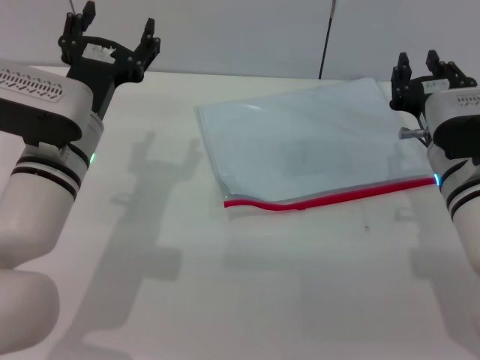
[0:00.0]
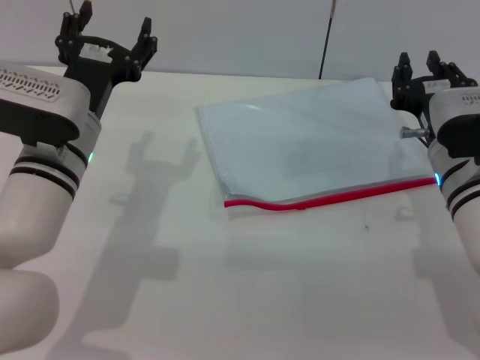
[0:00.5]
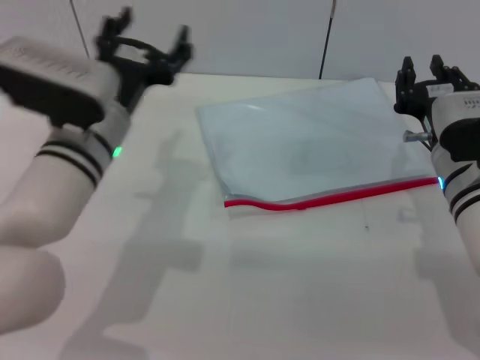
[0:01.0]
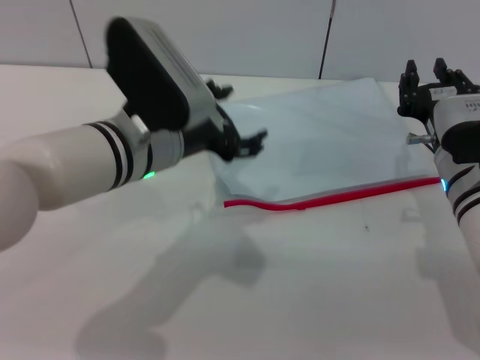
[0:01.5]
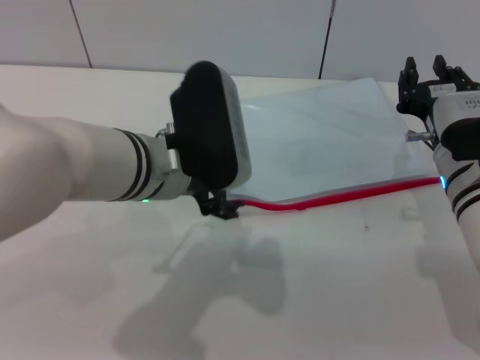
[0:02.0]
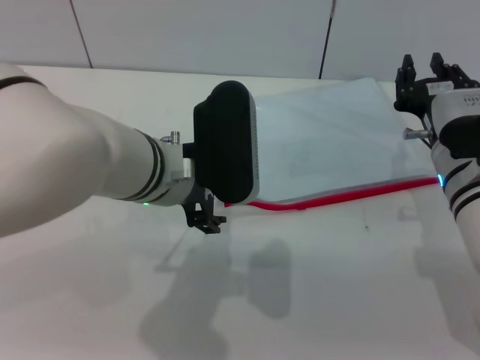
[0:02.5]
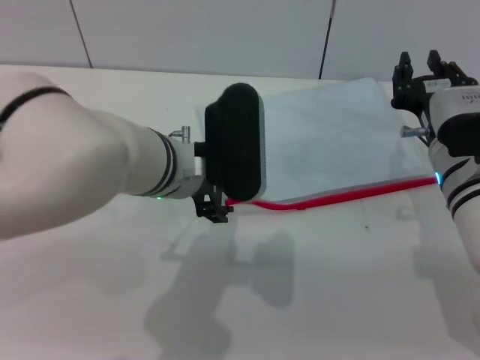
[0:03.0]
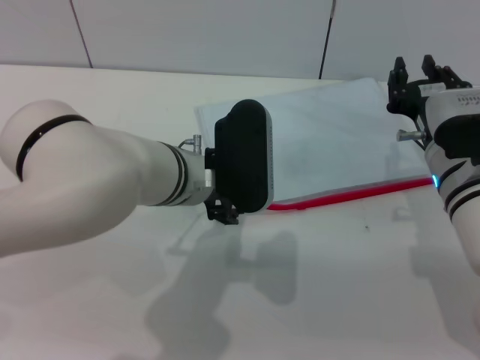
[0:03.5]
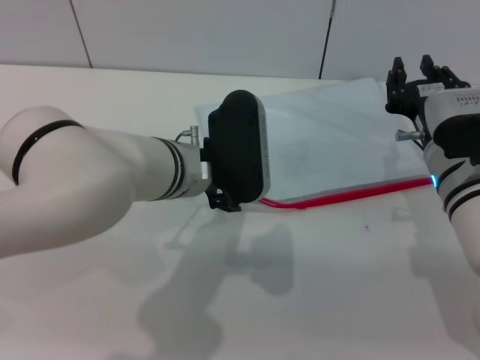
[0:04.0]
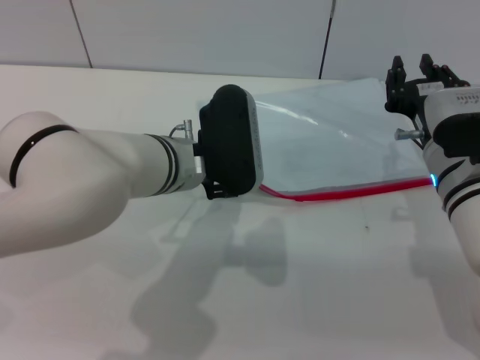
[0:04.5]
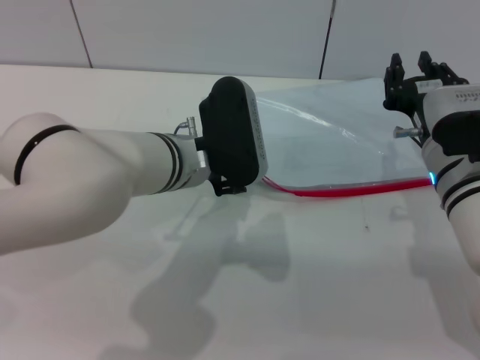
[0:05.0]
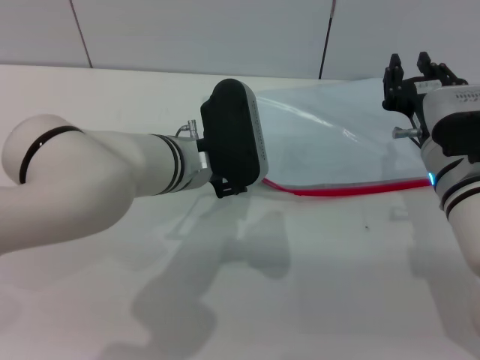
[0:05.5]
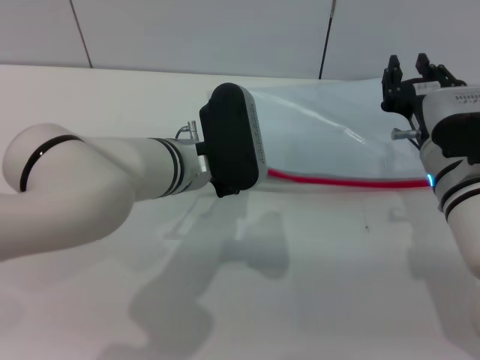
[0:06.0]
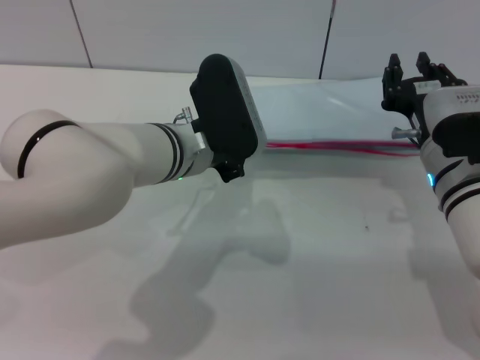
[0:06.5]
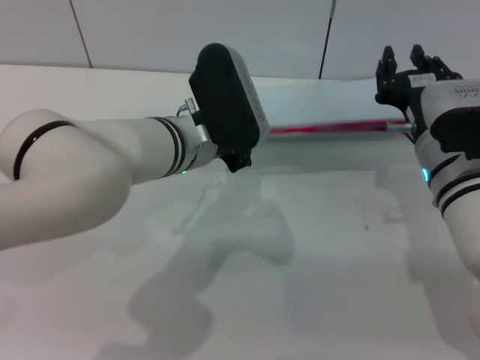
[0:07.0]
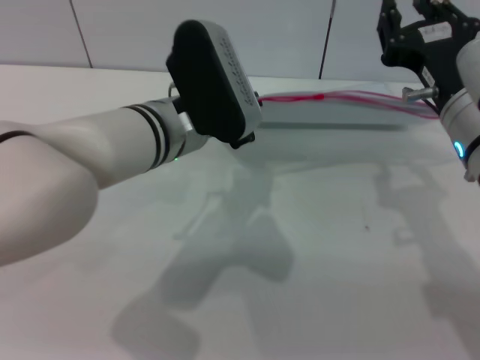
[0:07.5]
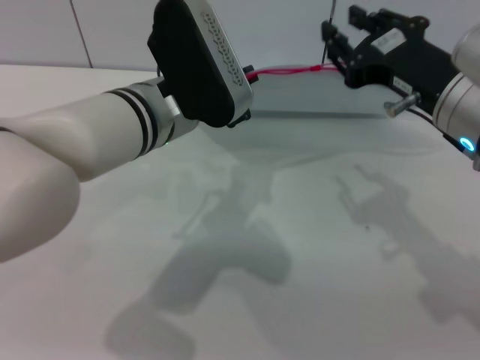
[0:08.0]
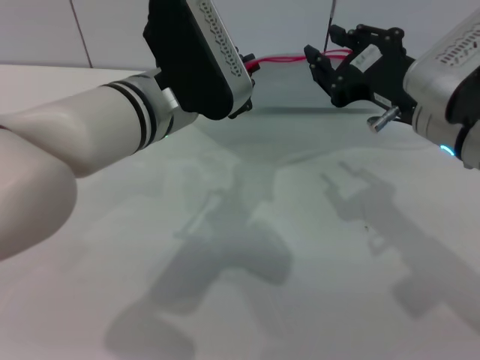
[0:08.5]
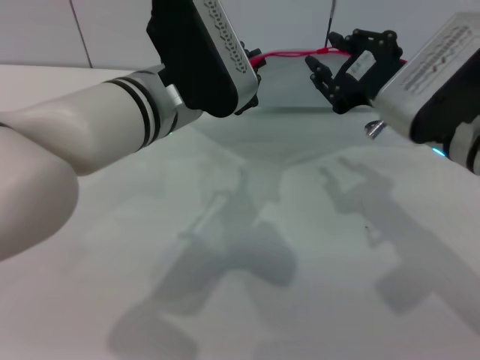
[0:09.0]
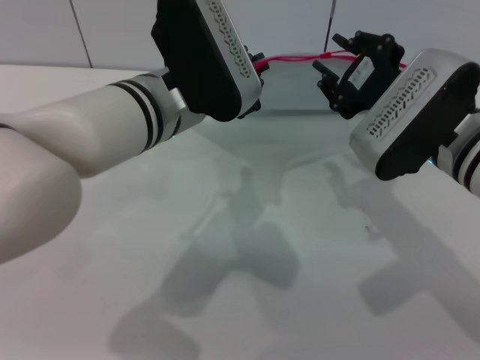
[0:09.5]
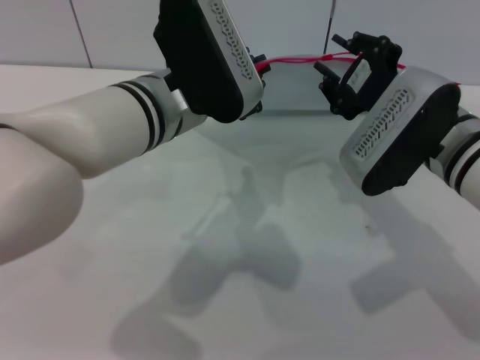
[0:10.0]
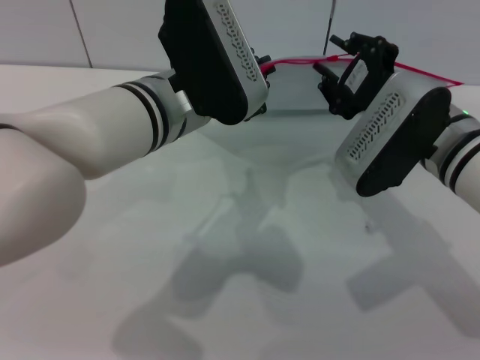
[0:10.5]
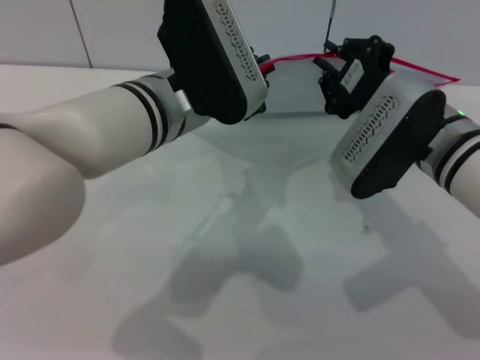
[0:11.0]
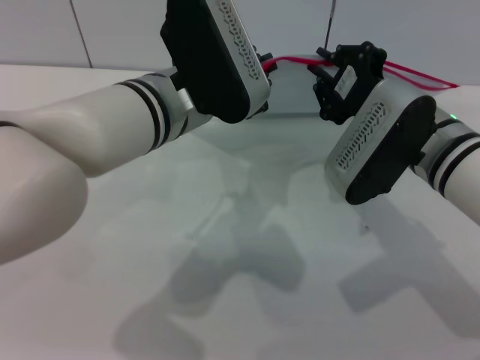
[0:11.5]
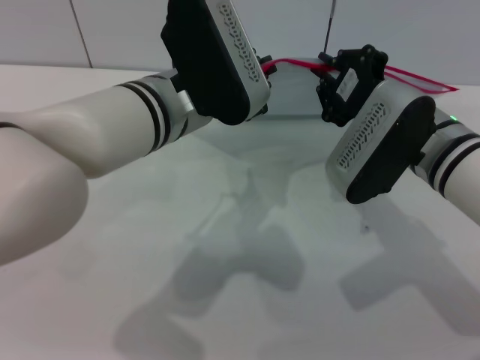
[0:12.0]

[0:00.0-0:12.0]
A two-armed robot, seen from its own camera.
Step, 0:00.0 to 0:07.5: Pick up the transparent plastic bag with the left gripper.
0:00.0 to 0:02.0: The left gripper shifts roughly 10 cm to the right.
0:02.0 to 0:04.0: The left gripper moves roughly 5 cm.
0:04.0 to 0:06.0: The left gripper closes.
0:06.0 to 0:08.0: Both grippers travel together upward, some 10 cm. The left gripper closes up.
0:08.0 to 0:10.0: The right gripper ends up approximately 5 cm from where it was.
0:10.0 to 0:12.0: The right gripper closes up.

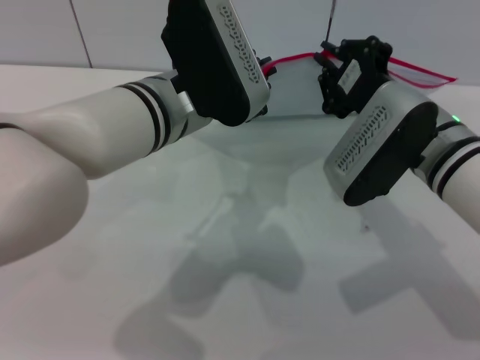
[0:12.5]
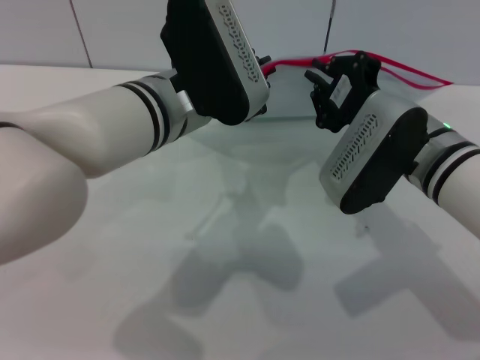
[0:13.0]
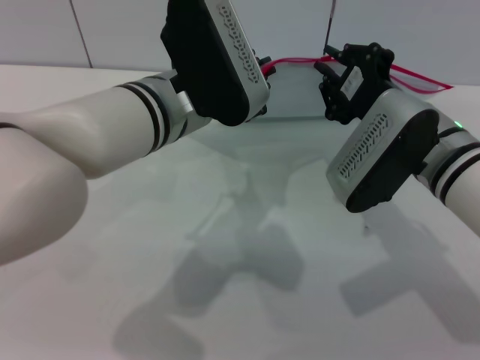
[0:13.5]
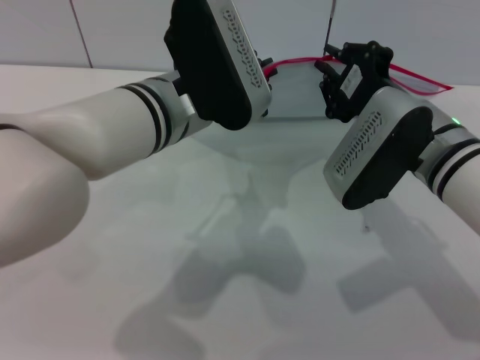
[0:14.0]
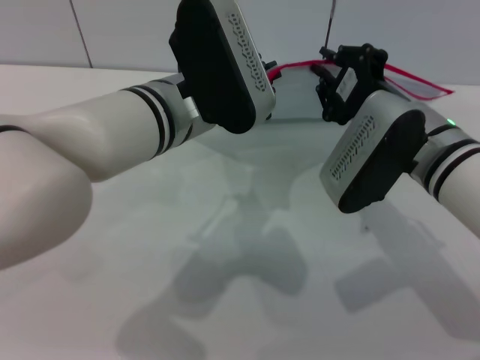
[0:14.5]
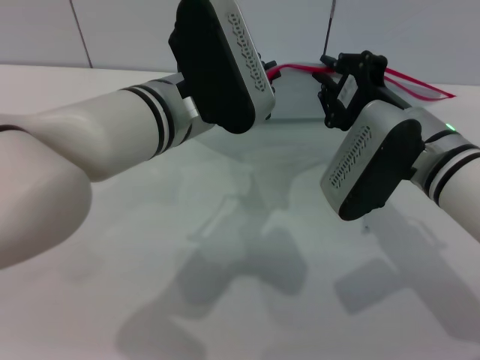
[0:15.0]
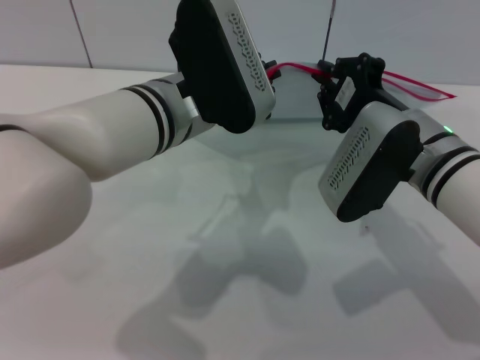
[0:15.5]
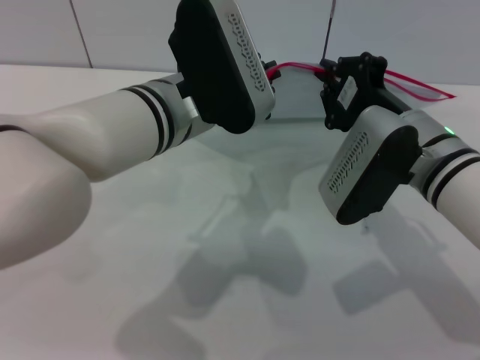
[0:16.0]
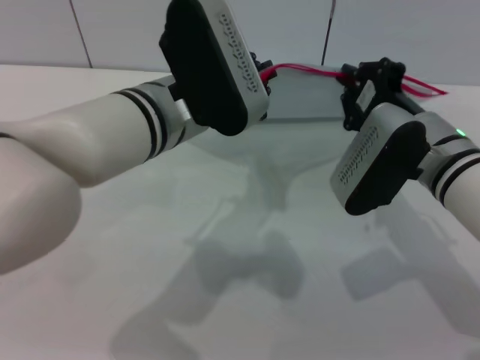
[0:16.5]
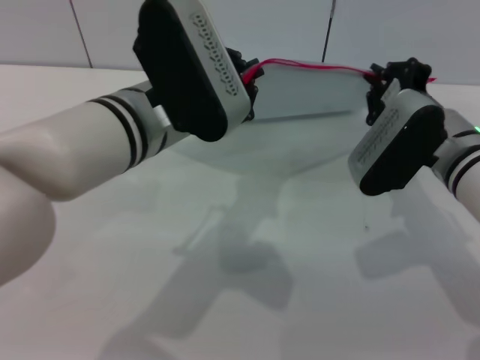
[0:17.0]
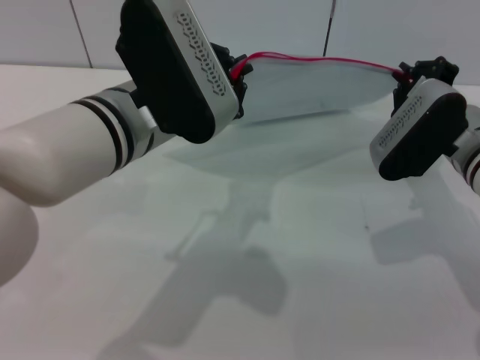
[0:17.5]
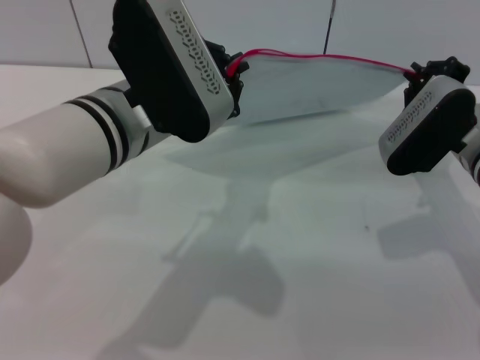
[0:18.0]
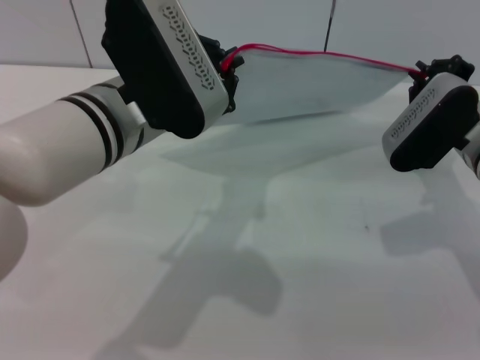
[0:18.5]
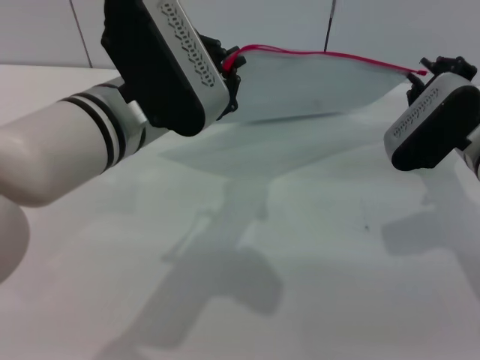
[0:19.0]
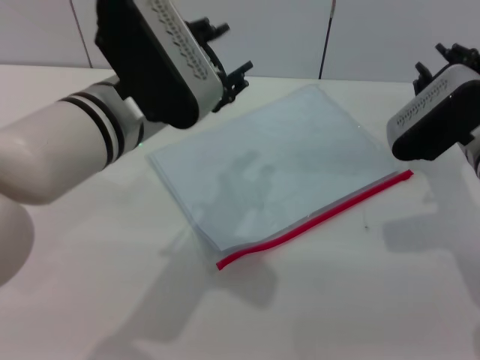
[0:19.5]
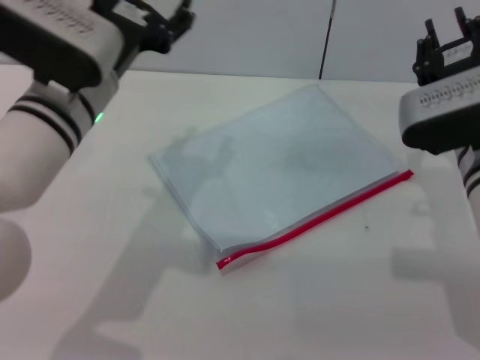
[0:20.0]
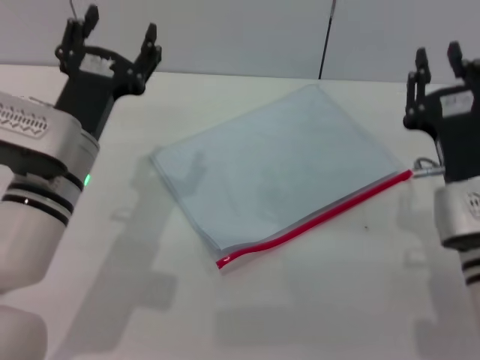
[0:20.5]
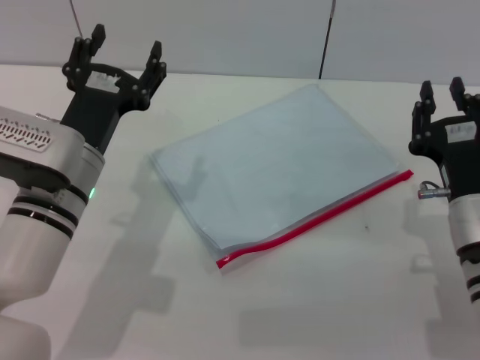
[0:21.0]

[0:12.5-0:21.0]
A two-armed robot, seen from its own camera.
Step, 0:12.5 to 0:18.5: Pulling up the zipper on the transparent plastic bag with the right gripper to close it.
0:12.5 to 0:14.5: The two grippers keep their place.
0:14.5 to 0:16.5: There are only small adjustments of the grippers.
0:16.5 to 0:19.0: The right gripper heads to the right, covering about 5 cm.
0:19.0 to 0:21.0: The right gripper goes roughly 10 cm backward, and opens up. The left gripper moves downward and to the left, about 10 cm, and opens.

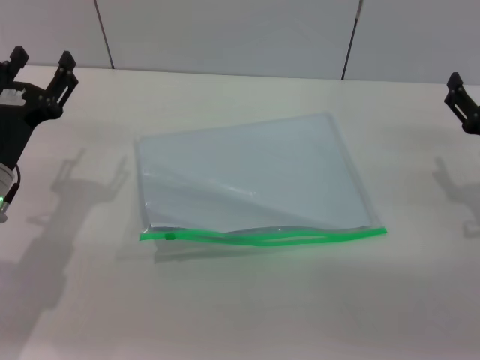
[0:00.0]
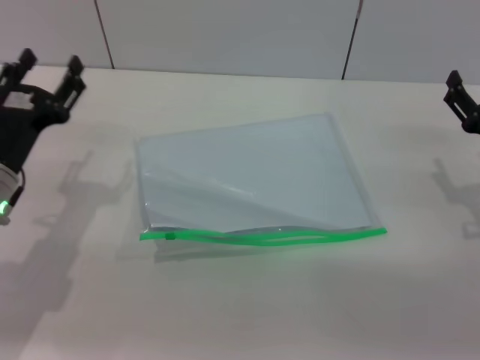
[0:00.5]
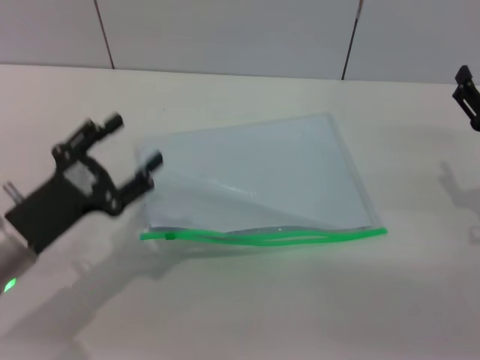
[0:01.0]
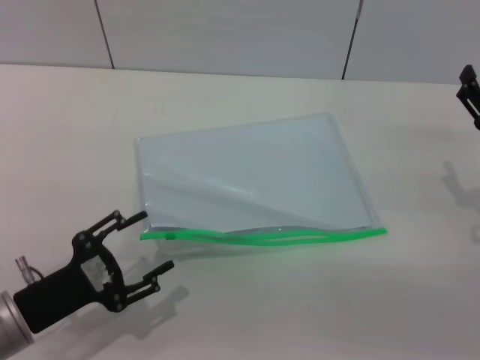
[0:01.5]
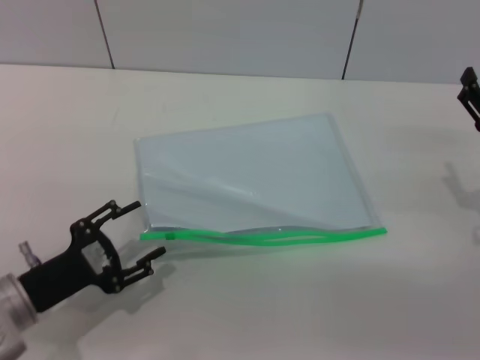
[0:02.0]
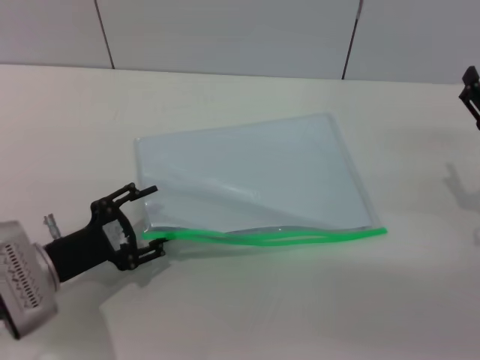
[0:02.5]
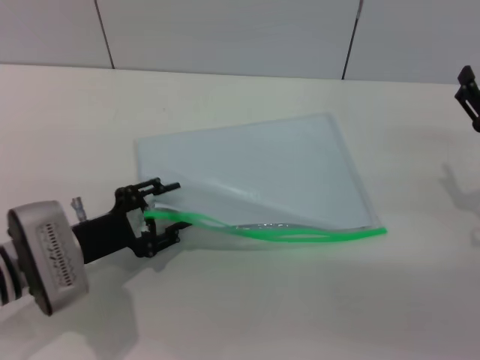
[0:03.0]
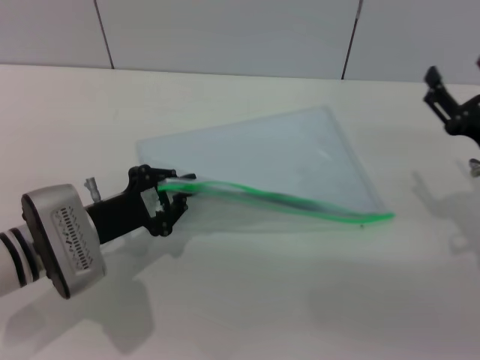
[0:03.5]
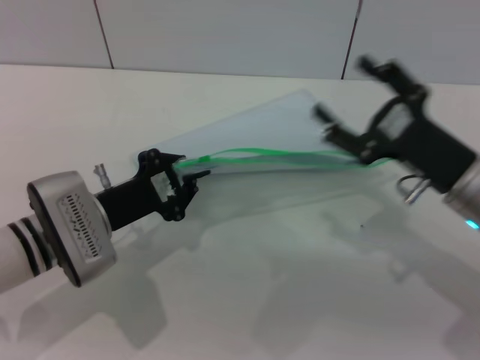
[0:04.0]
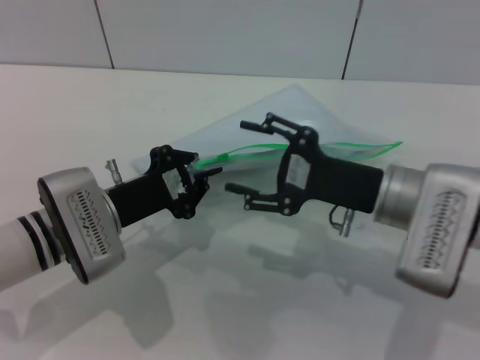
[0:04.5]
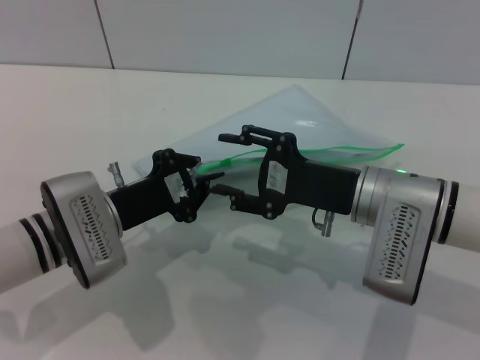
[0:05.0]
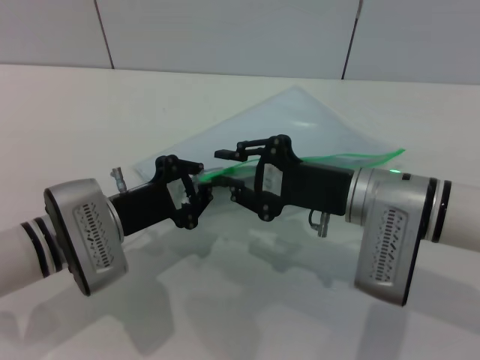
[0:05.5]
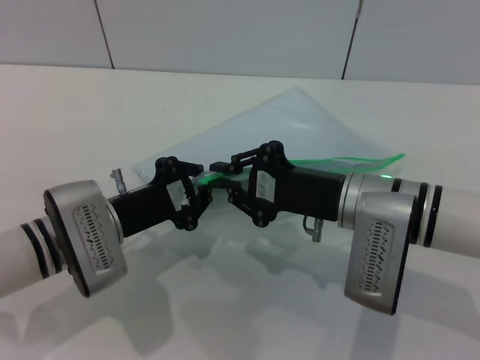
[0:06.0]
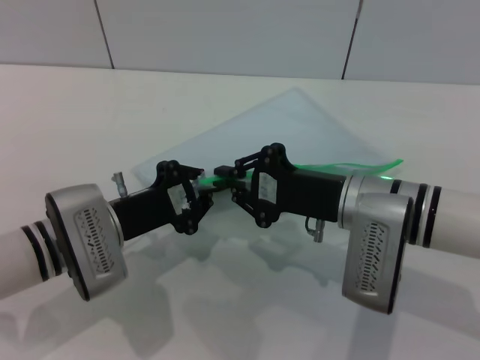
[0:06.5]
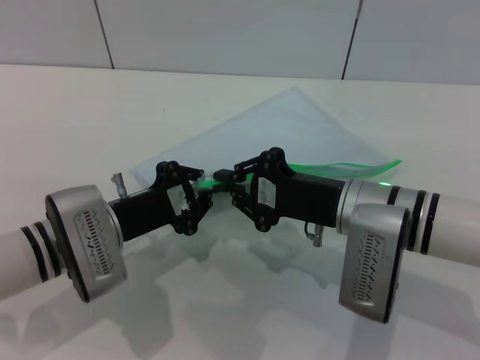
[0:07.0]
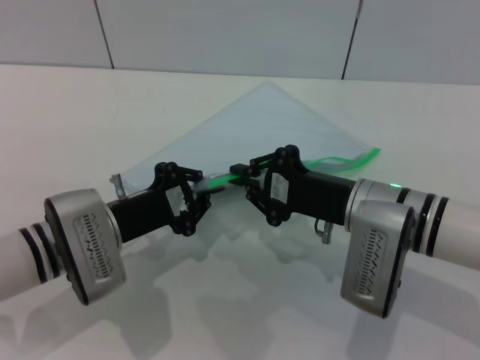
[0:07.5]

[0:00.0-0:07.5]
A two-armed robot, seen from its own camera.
Step, 0:00.0 to 0:04.0: Pick up the transparent plastic bag with the left gripper.
0:00.0 to 0:02.0: The left gripper travels backward by about 10 cm.
0:02.0 to 0:04.0: The left gripper heads forward and to the right, covering approximately 10 cm, and closes; the right gripper goes about 5 cm to the left.
0:04.0 to 0:05.5: The right gripper heads to the left, covering approximately 10 cm, and closes its fingers.
0:05.5 to 0:07.5: The right gripper closes.
